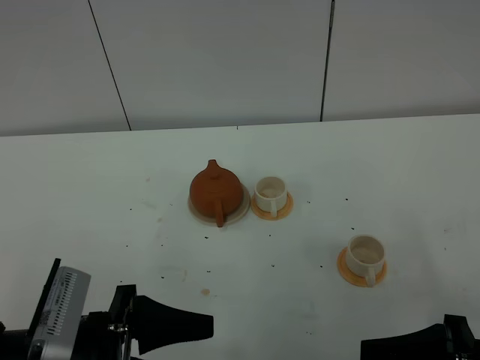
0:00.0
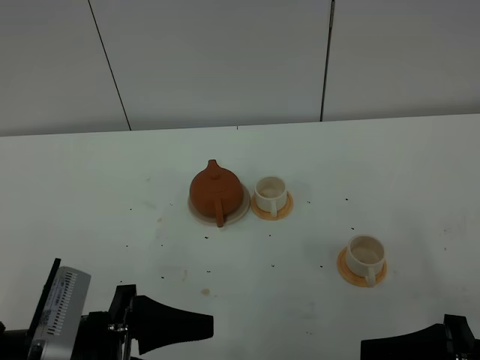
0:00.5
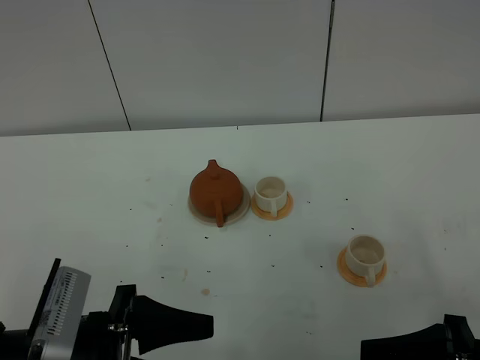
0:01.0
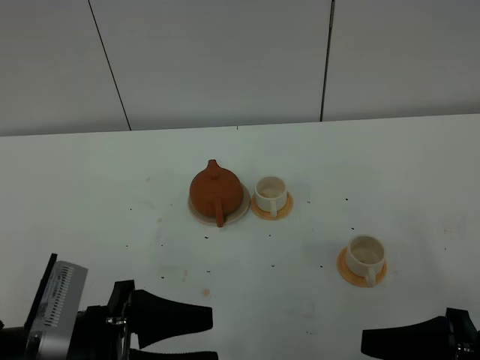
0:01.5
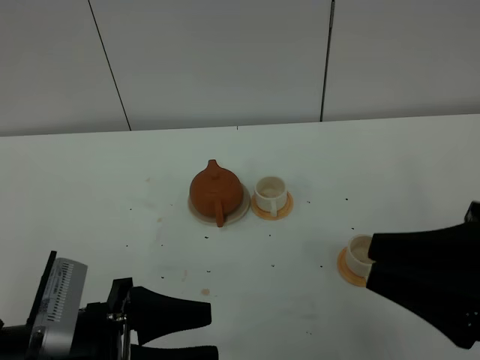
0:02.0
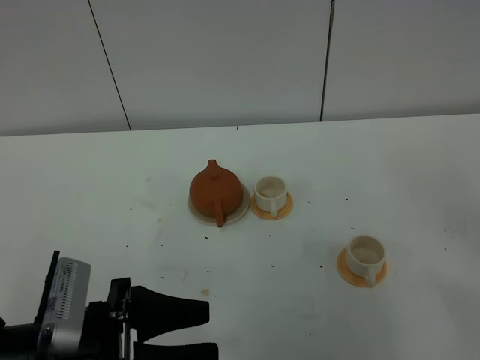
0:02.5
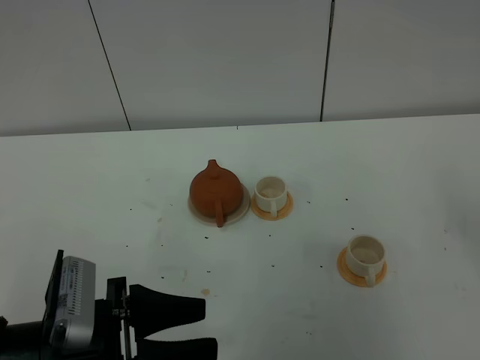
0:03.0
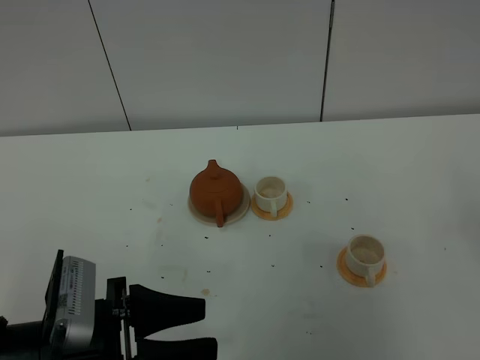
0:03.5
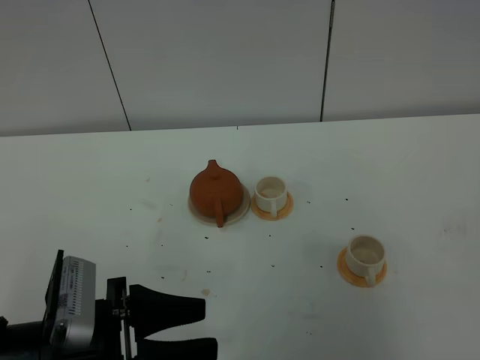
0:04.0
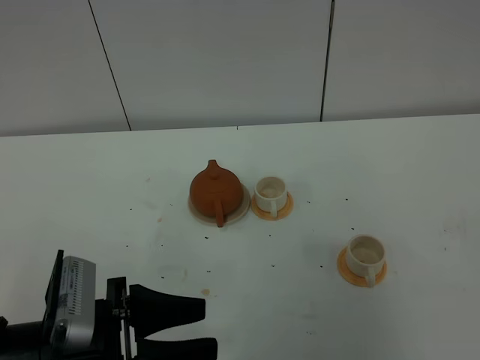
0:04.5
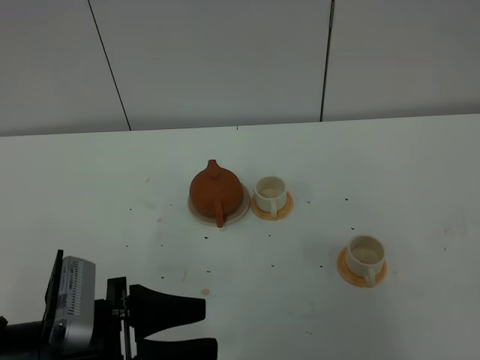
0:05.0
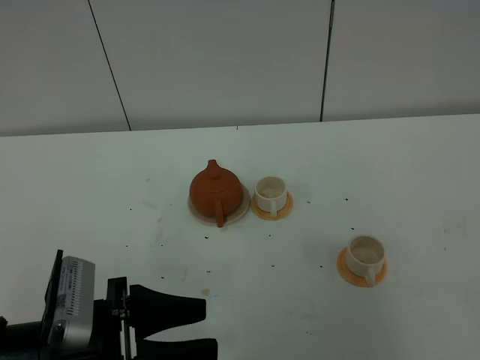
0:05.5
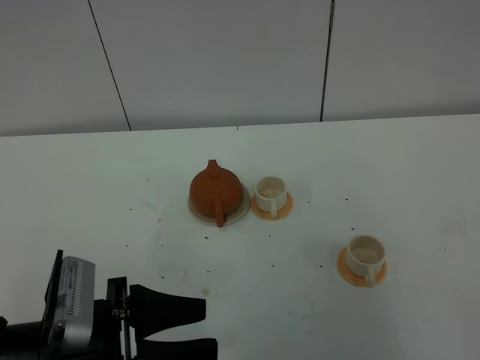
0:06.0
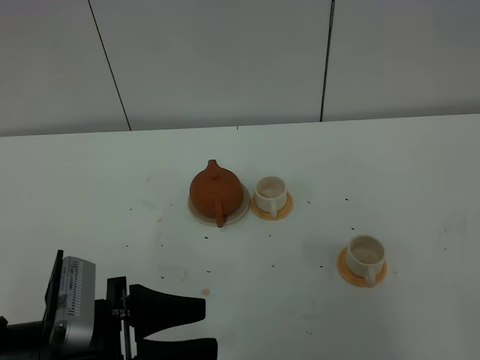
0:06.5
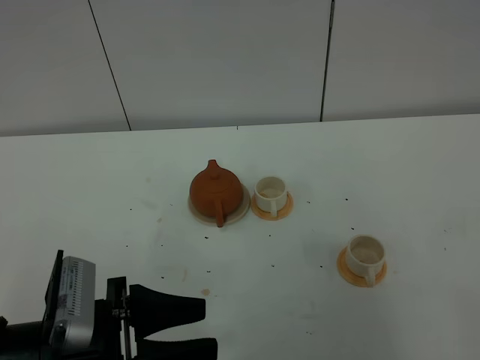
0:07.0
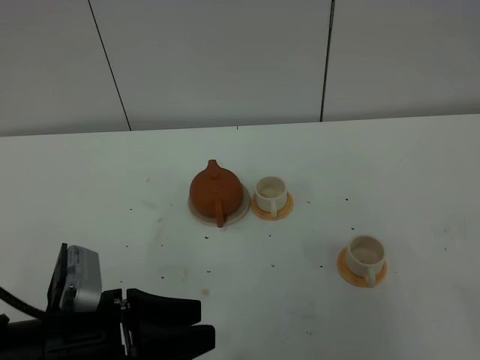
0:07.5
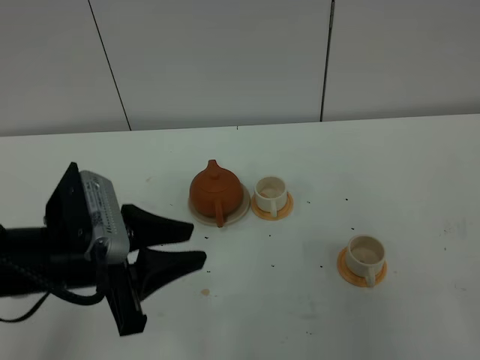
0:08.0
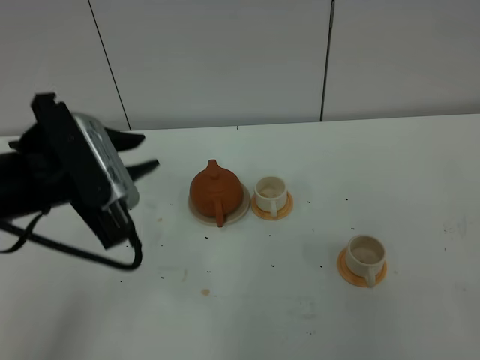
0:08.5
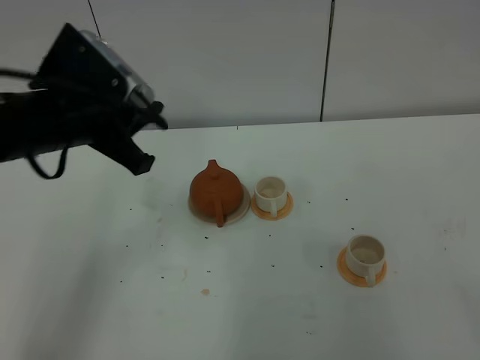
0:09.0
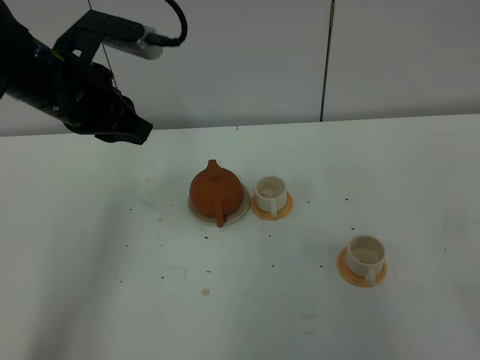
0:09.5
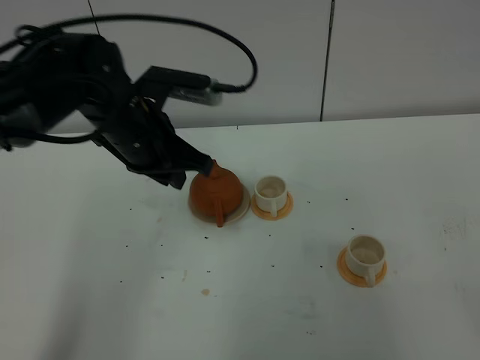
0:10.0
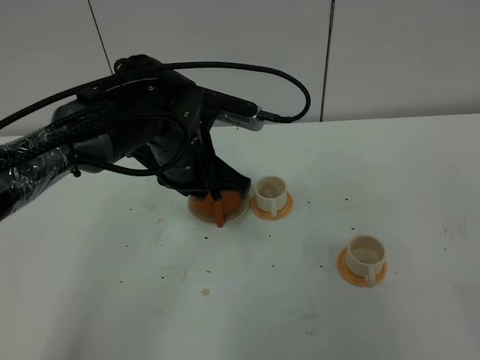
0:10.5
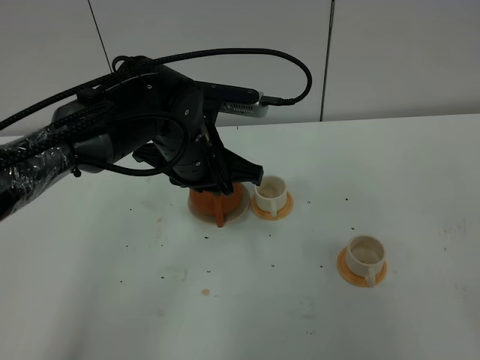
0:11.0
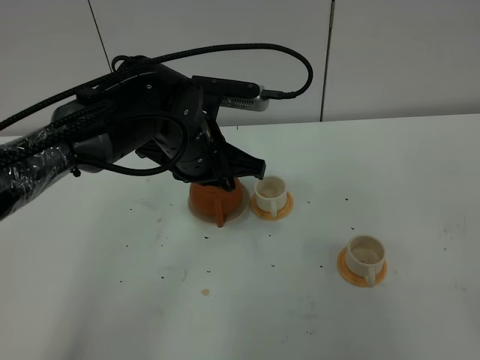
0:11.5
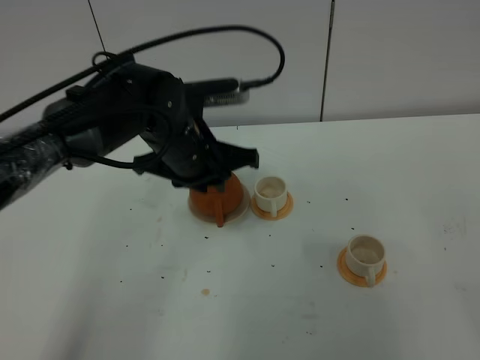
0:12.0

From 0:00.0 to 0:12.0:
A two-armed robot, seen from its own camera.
Task of the whole recording: grasp the brown teapot and pour the tea into the two white teacups one by one, put the brown teapot back in its original place.
From 0:00.0 to 0:02.0: The right gripper moves upward, roughly 10 cm, and closes up.
From 0:02.0 to 0:04.0: The right gripper is displaced backward and to the right by some 15 cm, and closes its fingers.
From 0:06.0 to 0:08.0: The left gripper heads forward and upward, covering about 10 cm.
From 0:08.0 to 0:10.0: The left gripper heads forward, covering about 15 cm, and closes its fingers.
From 0:10.0 to 0:12.0: The left gripper shifts by some 5 cm.

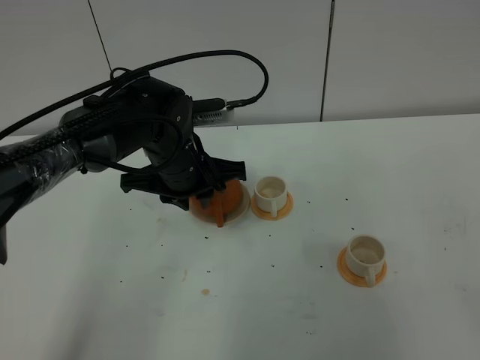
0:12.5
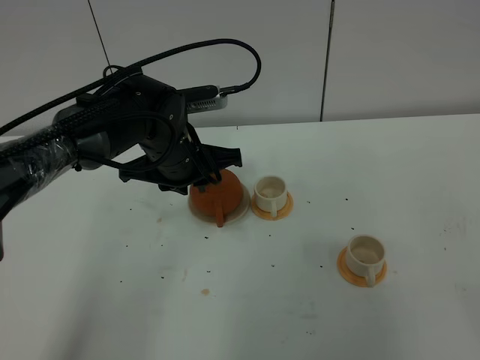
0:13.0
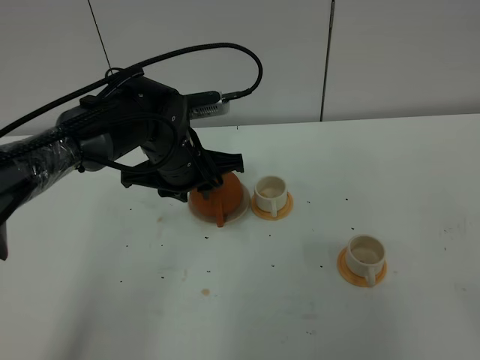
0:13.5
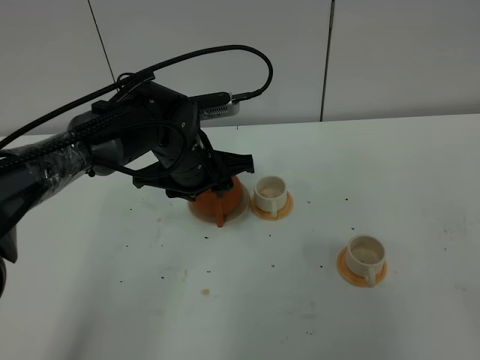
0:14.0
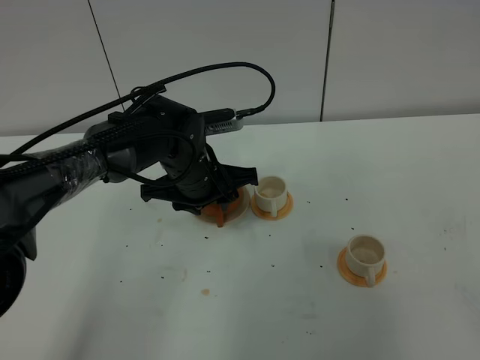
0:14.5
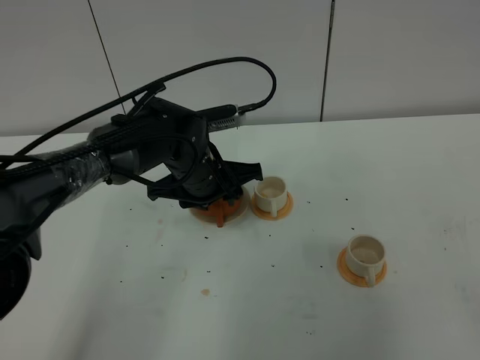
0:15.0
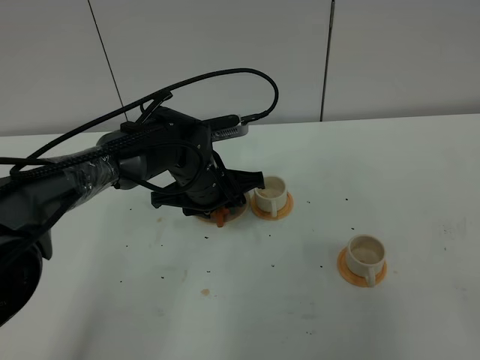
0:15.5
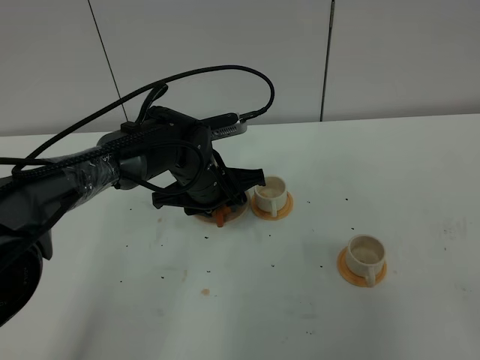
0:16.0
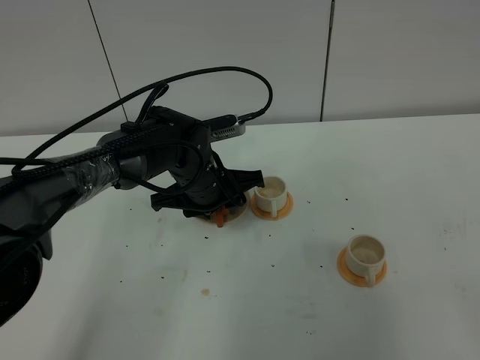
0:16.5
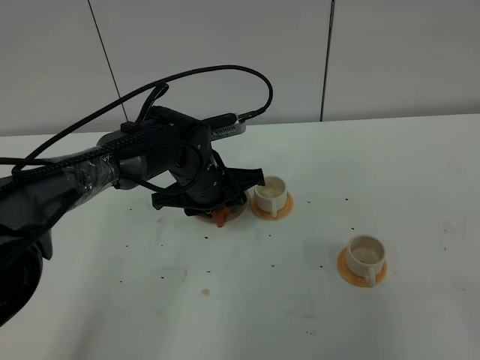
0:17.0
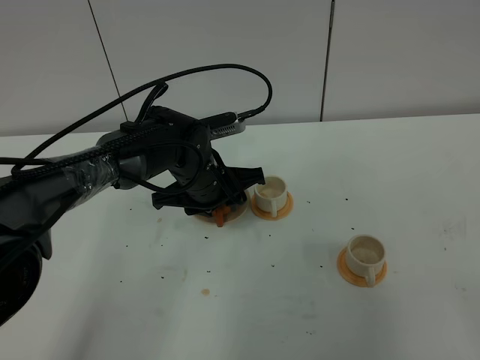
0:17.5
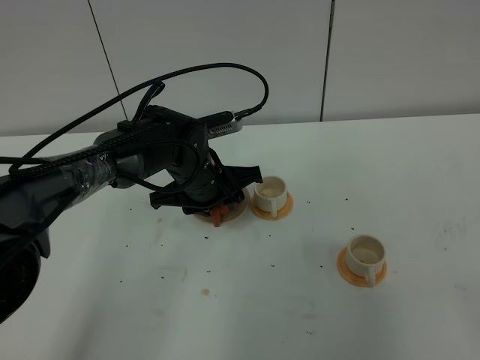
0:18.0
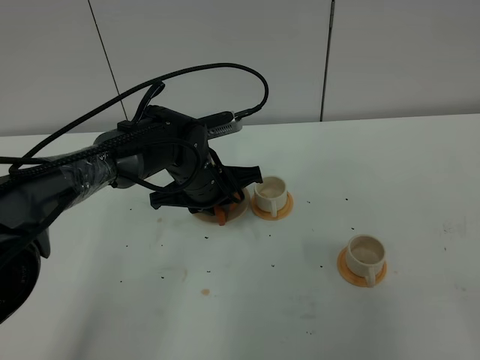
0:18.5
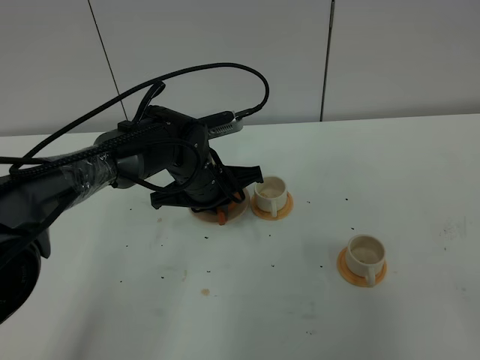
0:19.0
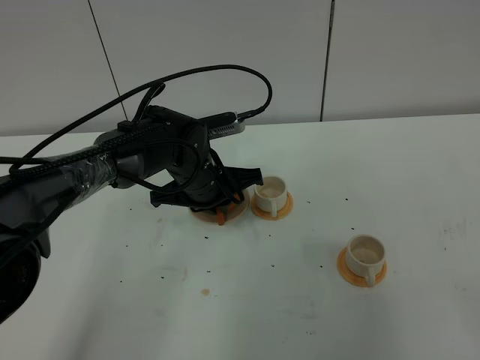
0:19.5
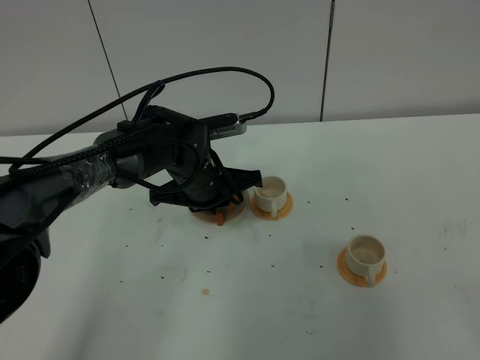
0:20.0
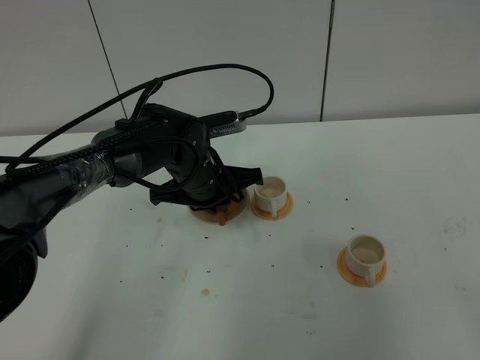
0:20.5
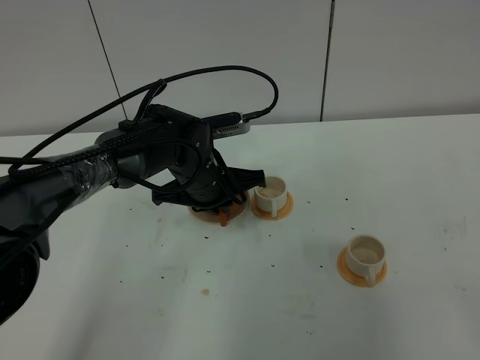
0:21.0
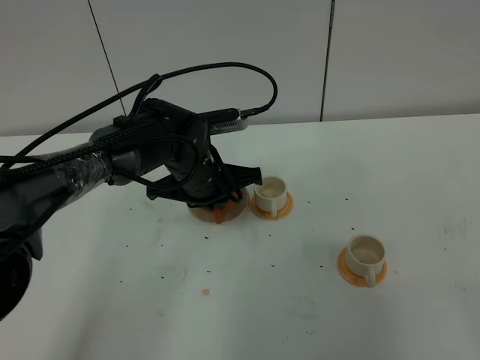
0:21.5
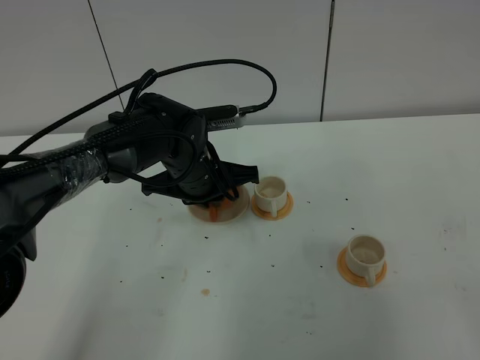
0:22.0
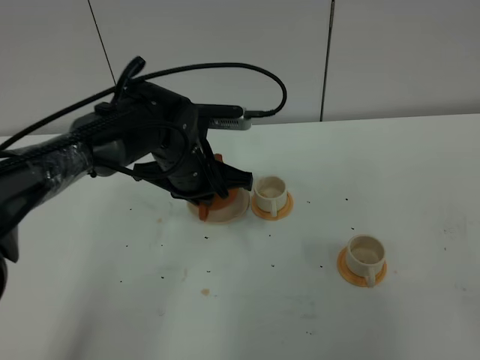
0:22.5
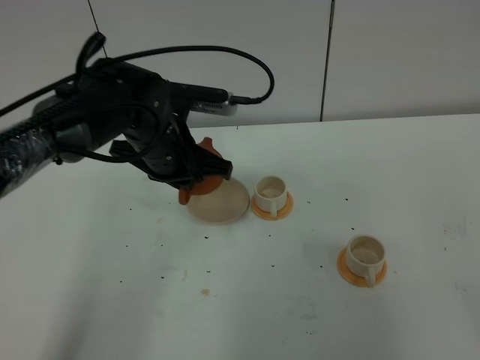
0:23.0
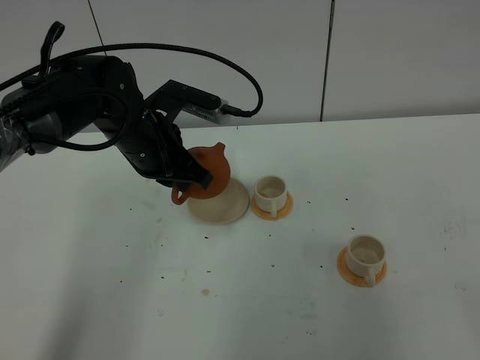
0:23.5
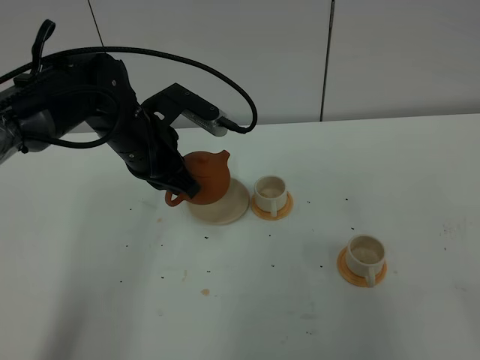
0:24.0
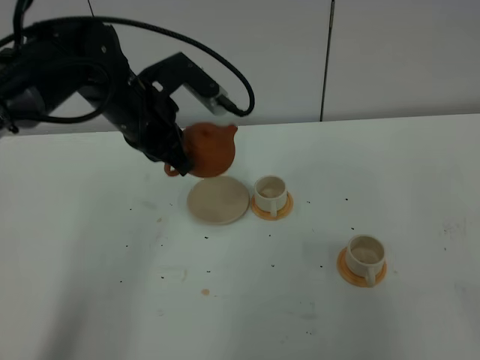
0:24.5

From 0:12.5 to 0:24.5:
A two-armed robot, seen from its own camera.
Task of the whole recording: grasp the brown teapot and pour the tea into the two white teacups one by one, put the brown teapot back in its original place.
Step, from 0:12.5 to 0:22.0: Pick up the teapot with the left gripper.
From 0:12.5 to 0:14.5: The left gripper opens its fingers.
From 0:14.5 to 0:16.5: There are only small adjustments of the grippers.
From 0:16.5 to 0:18.5: The left gripper closes its fingers.
From 0:18.5 to 0:20.5: Both grippers stay put.
From 0:20.5 to 0:22.5: The grippers stay close to where they were, moving slightly.
From 0:22.5 to 0:24.5: The left gripper heads upward and to the left, covering roughly 10 cm.

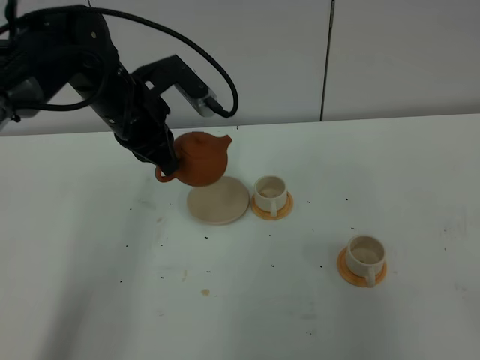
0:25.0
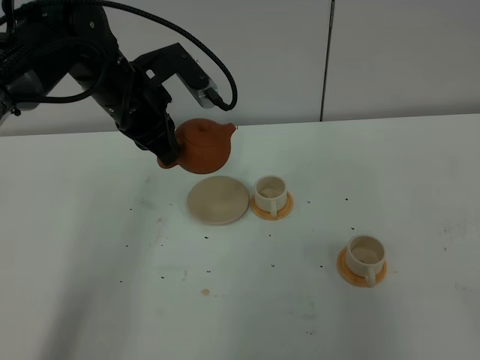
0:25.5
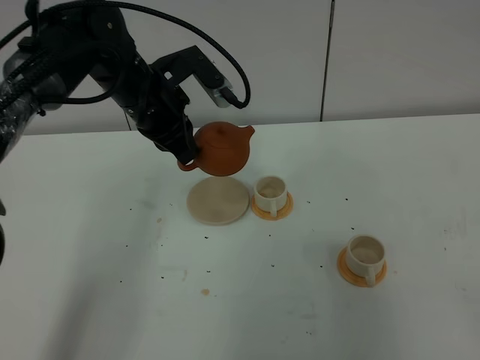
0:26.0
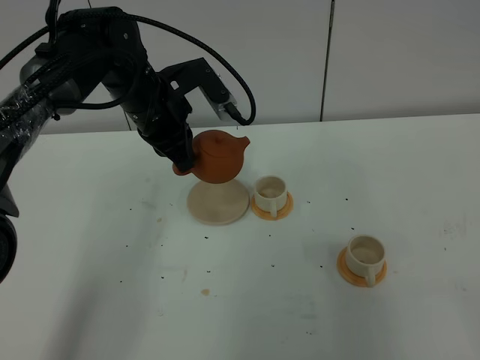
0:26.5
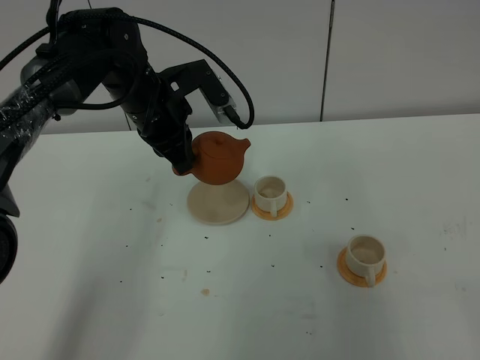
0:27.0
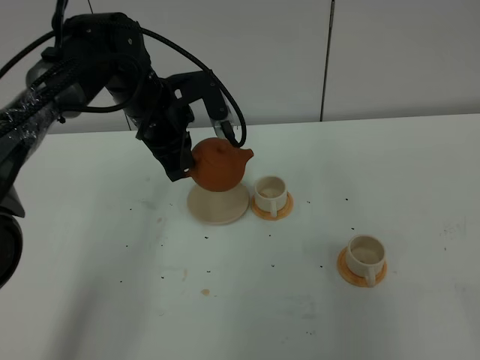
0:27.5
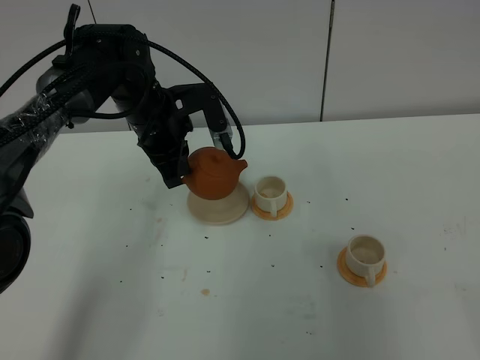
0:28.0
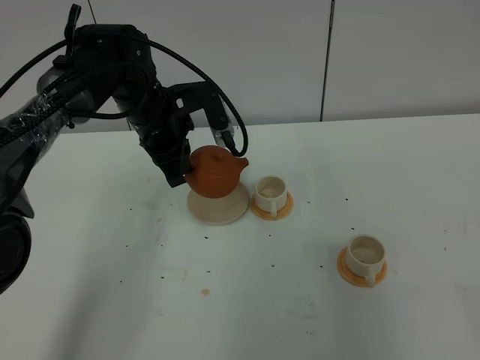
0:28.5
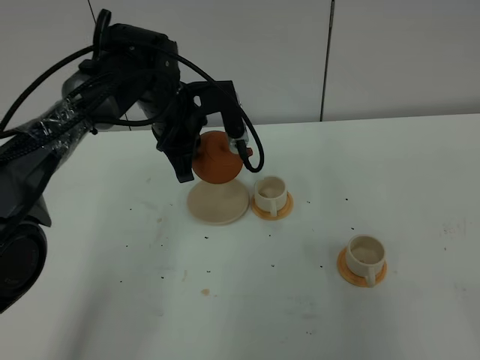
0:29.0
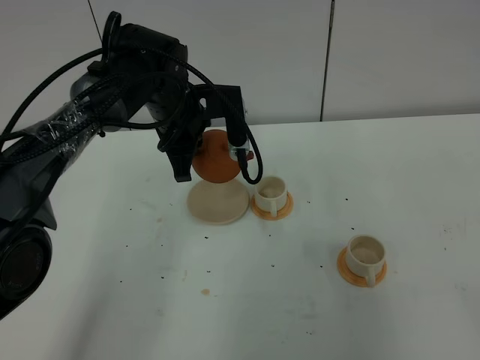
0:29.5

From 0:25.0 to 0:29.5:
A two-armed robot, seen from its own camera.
Task of the whole recording: grasp the brown teapot and pour the tea into the two white teacups one by one, put the brown teapot back in its original place.
From 0:25.0 to 0:27.0: The grippers move only a little.
